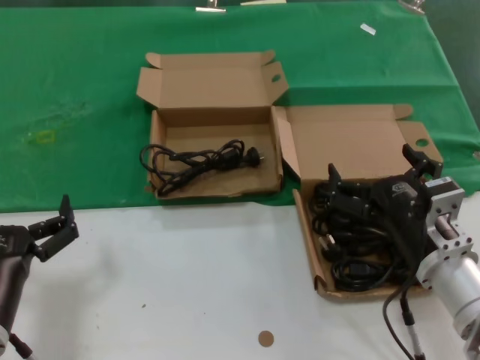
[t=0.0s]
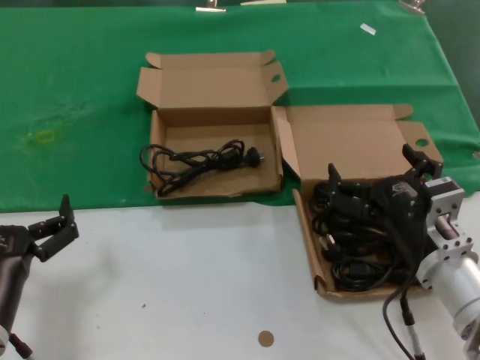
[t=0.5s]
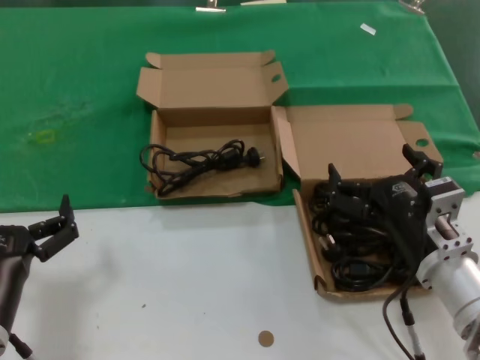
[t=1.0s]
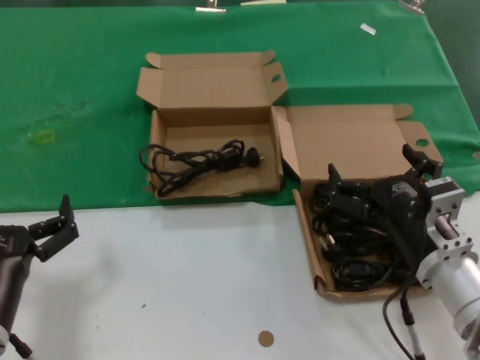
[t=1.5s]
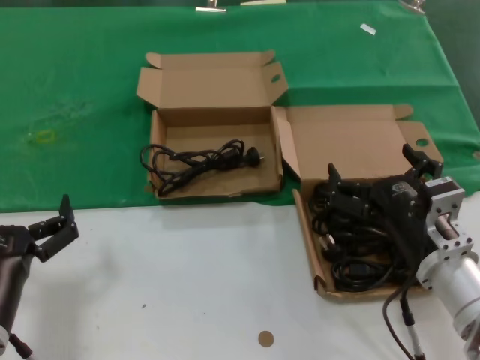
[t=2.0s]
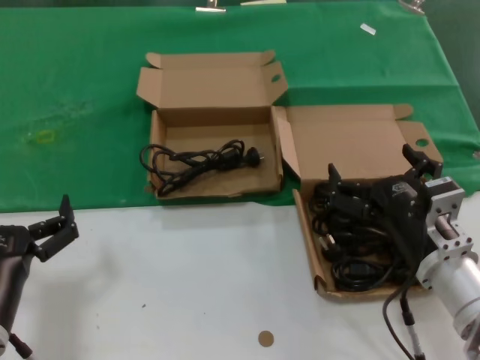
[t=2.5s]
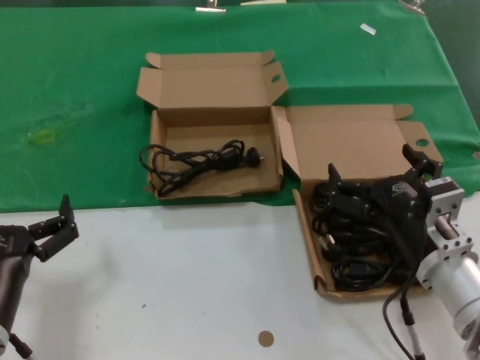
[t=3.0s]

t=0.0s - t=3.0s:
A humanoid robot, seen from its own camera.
Task of the whole recording: take the parts from the box containing them and put them into an empty box.
t=0.0s - t=3.0s: Neither hand changes place.

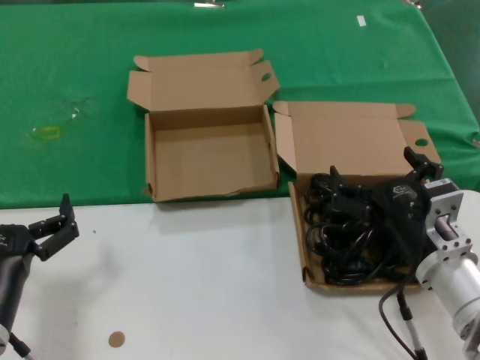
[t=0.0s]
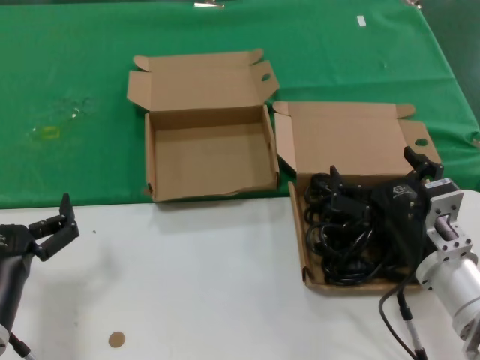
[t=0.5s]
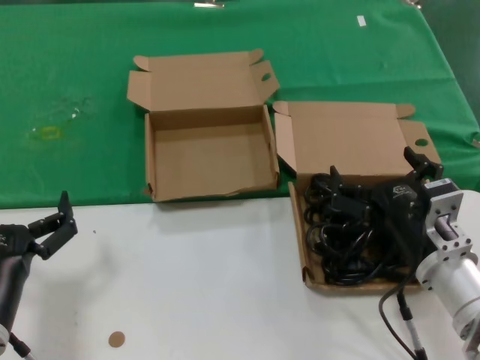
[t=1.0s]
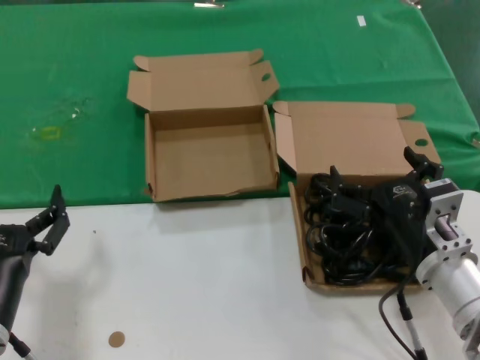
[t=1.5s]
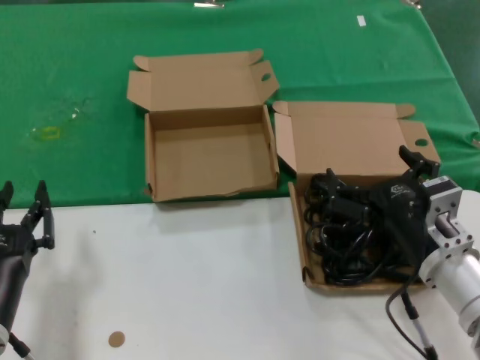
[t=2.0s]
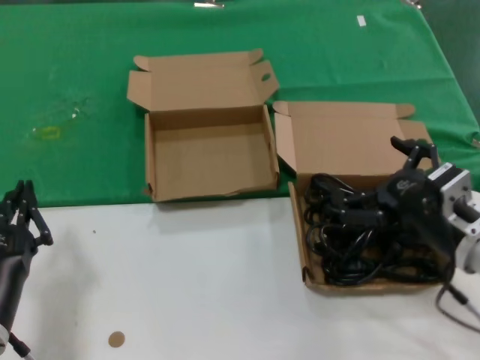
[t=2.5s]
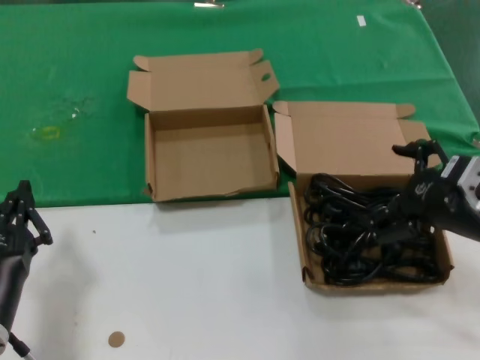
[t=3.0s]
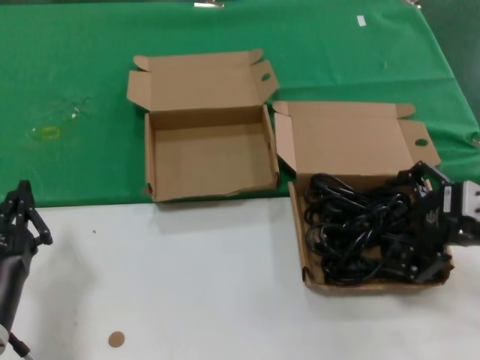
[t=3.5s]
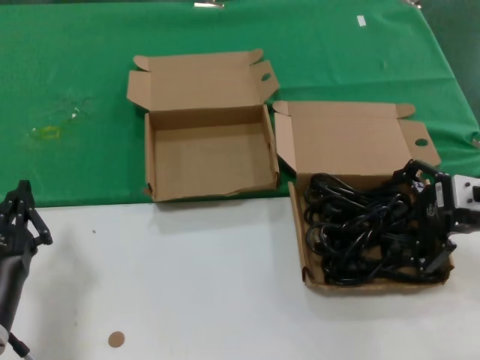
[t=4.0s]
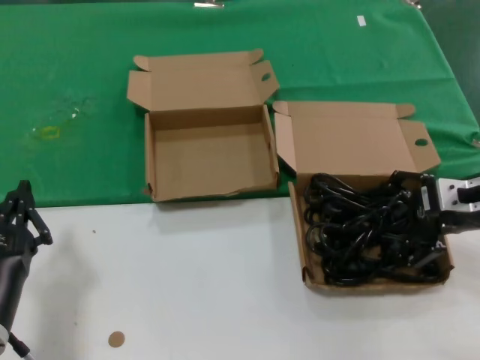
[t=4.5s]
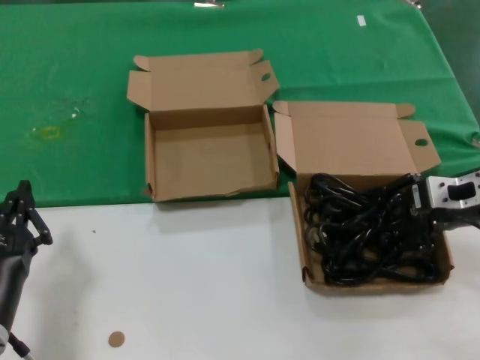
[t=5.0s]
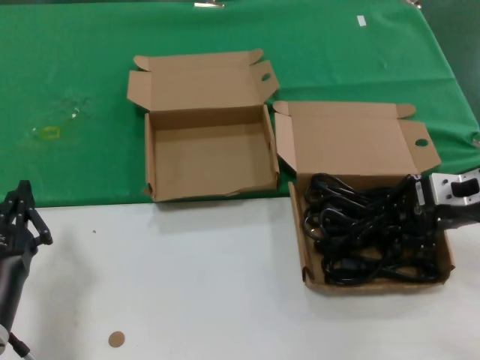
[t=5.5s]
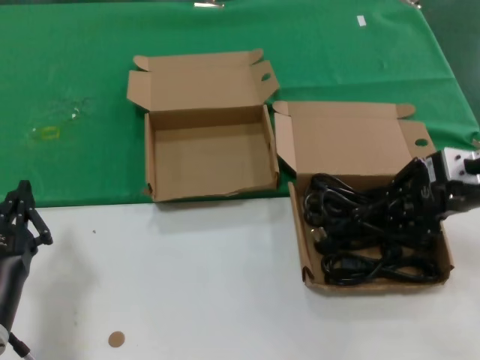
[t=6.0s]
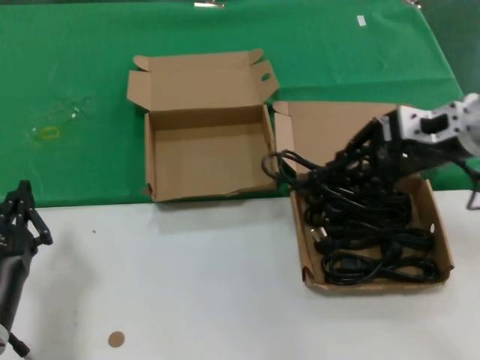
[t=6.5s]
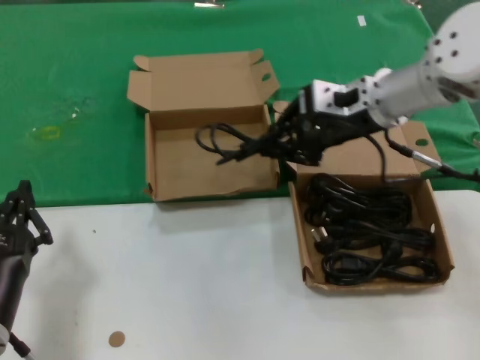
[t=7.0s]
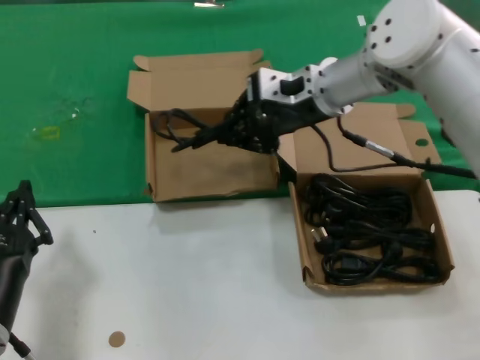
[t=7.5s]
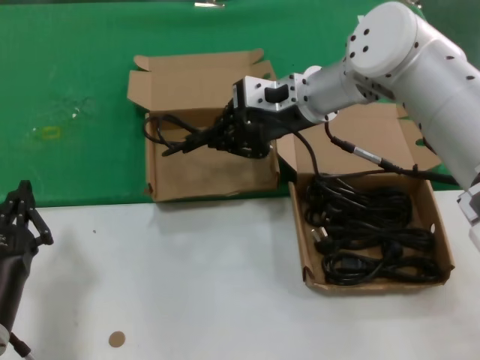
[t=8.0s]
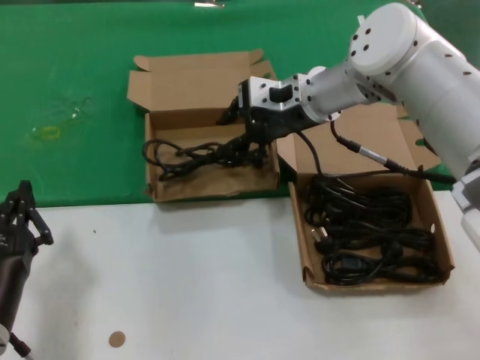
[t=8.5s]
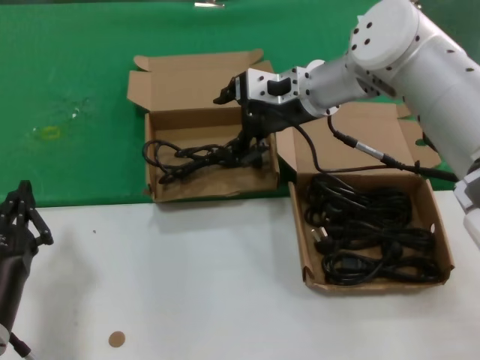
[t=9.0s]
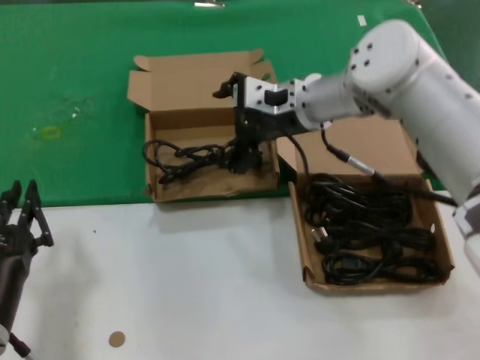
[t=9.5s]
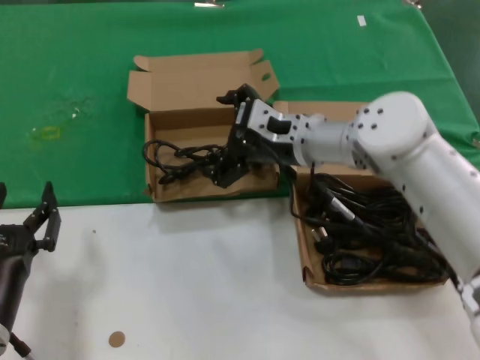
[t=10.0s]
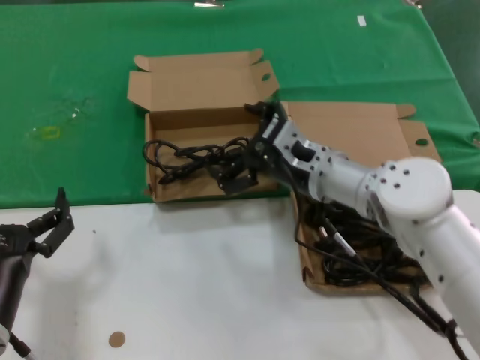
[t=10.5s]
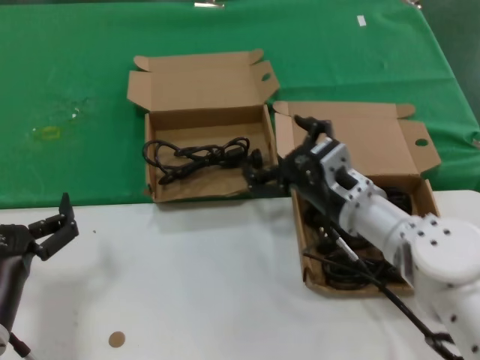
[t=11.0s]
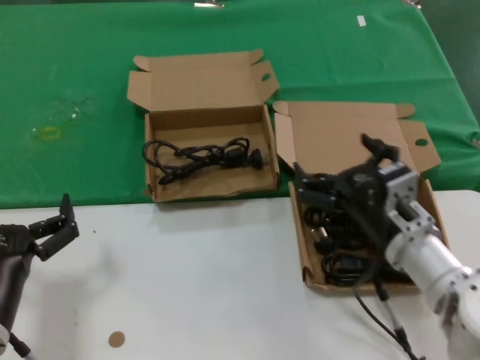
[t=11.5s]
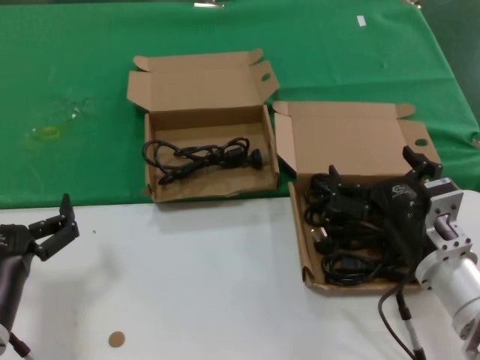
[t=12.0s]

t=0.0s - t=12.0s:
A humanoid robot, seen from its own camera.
Task of the whole recording: take the parts from the box containing them and put them into an empty box.
Step, t=0.0s - t=5.0s: Grasp the data cable.
Step, t=5.5s - t=8.5s: Place the data cable in the another box.
t=0.0s - t=2.0s: Neither hand changes place.
t=2.0s - t=4.0s: The right hand is displaced upward, to the right and forward by some 20 cm.
t=4.0s - t=6.0s: The hands stay close to where they were, moving slightly.
t=6.0s - t=8.0s: The right hand moves to the left and forward, some 25 cm.
t=8.0s - t=10.0s: The right hand goes roughly 10 cm downward.
t=10.0s - t=12.0s: The right hand heads backward, downward and to the right, covering approximately 25 cm.

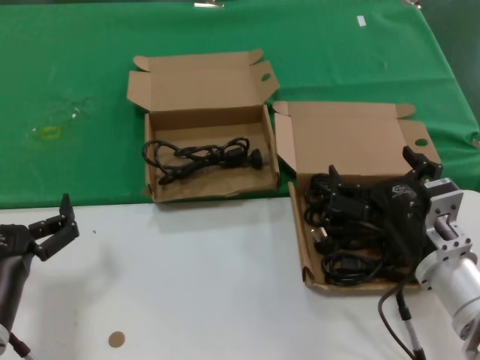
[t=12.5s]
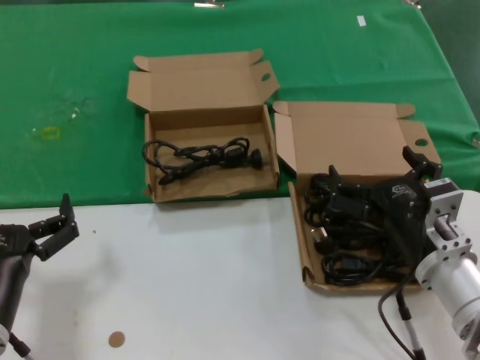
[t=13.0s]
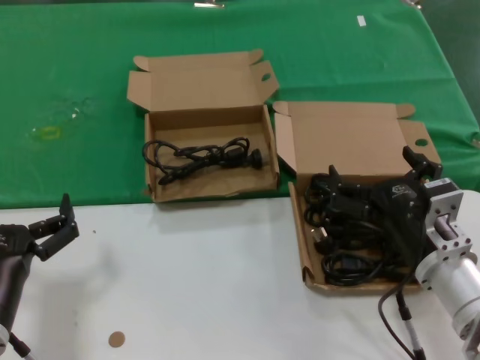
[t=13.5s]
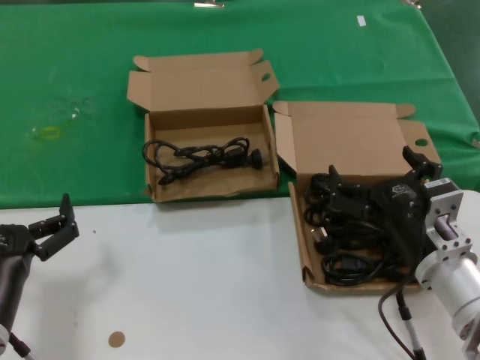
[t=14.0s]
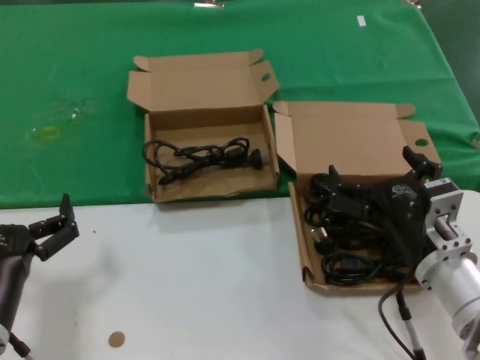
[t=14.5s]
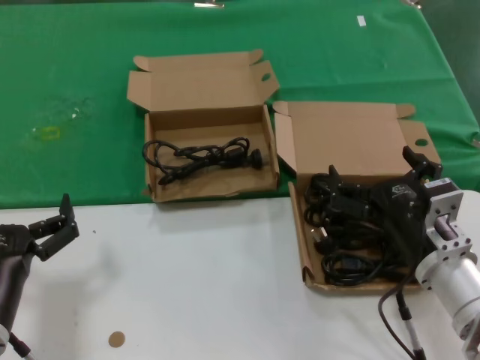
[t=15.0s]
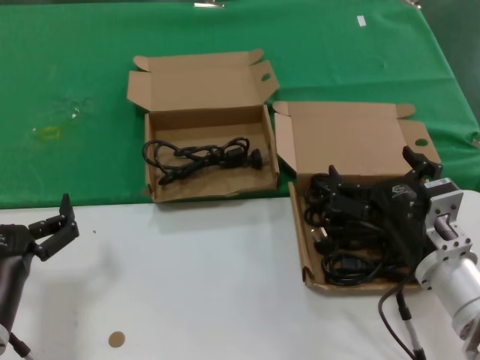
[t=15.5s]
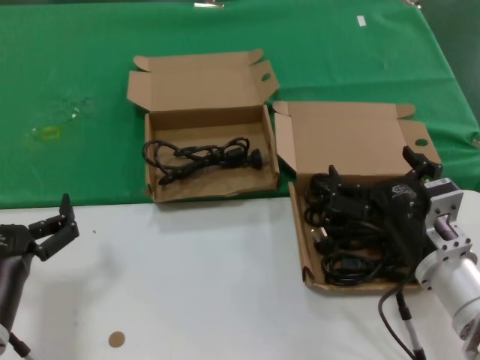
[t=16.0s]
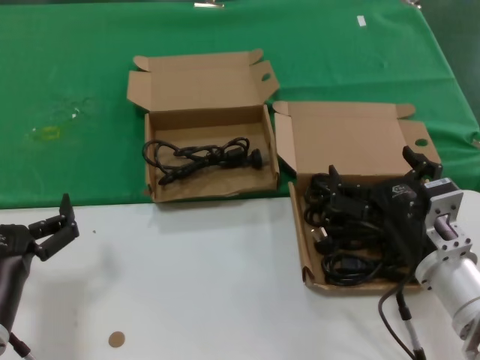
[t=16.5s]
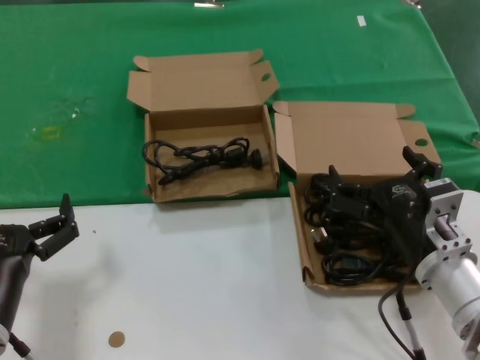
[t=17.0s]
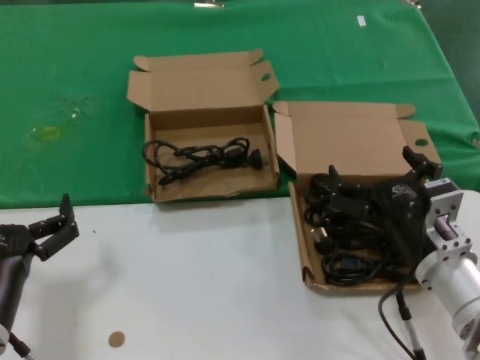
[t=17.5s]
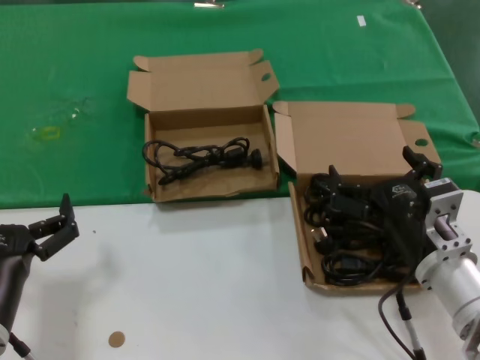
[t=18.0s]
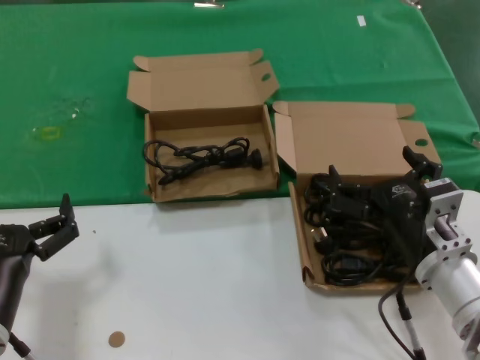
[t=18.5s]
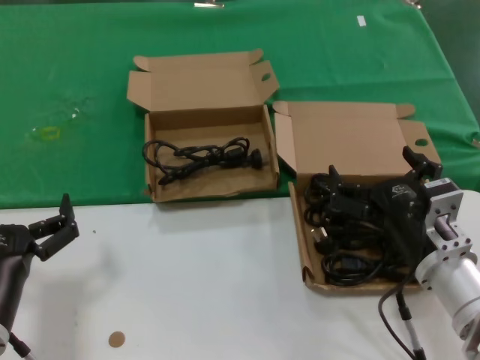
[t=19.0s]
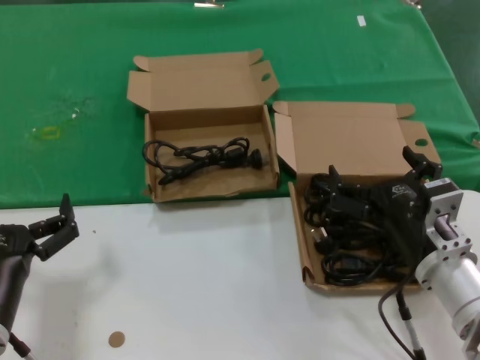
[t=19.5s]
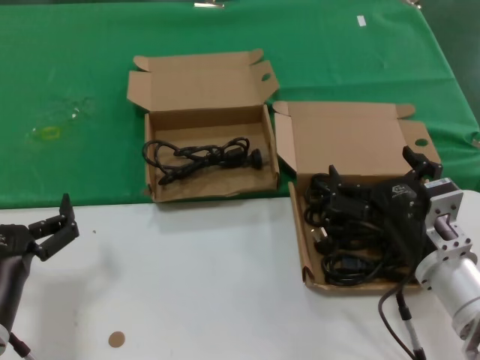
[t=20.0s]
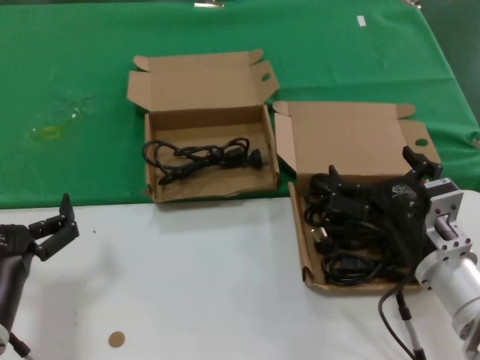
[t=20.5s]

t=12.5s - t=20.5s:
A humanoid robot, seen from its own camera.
Task of the whole recording: take the parts from the box containing them and put them into an empty box.
t=12.5s - t=20.5s: Both hands stay about where they are.
